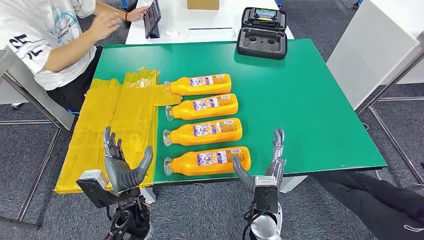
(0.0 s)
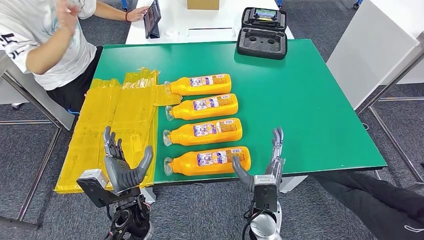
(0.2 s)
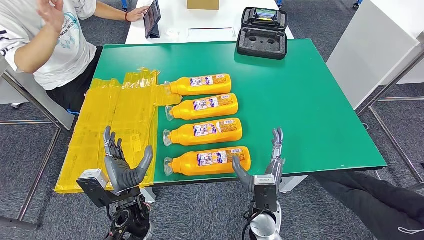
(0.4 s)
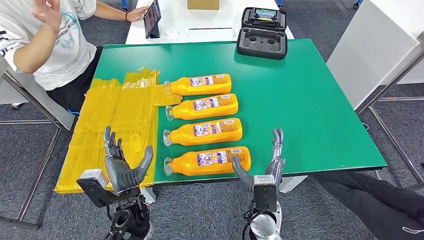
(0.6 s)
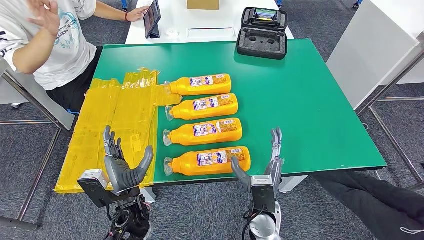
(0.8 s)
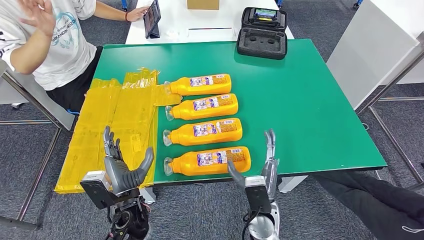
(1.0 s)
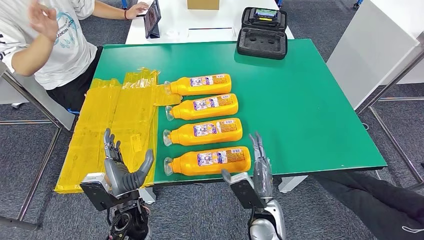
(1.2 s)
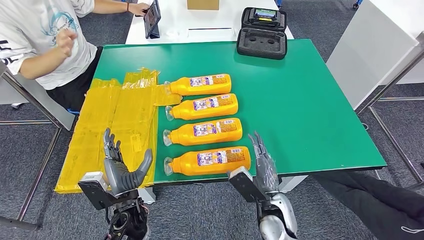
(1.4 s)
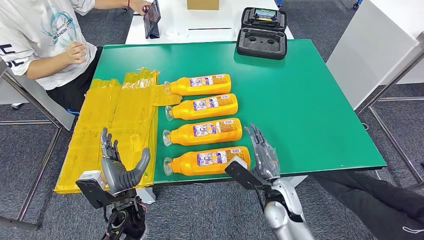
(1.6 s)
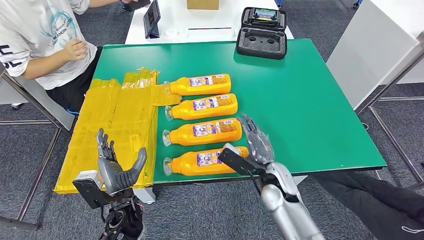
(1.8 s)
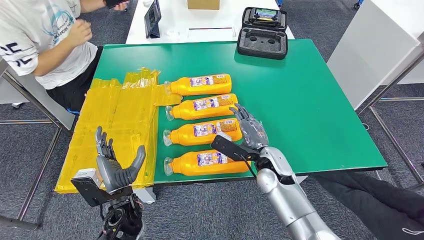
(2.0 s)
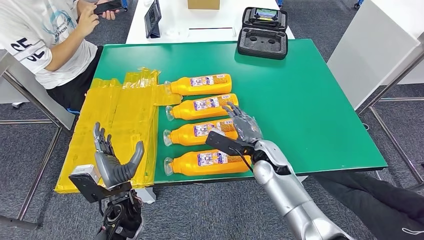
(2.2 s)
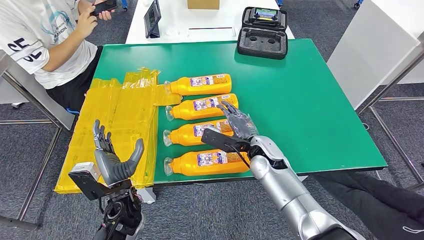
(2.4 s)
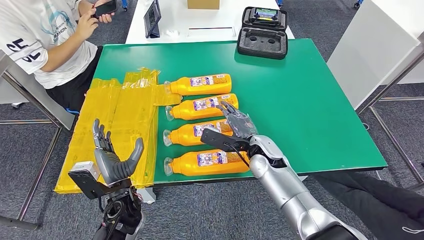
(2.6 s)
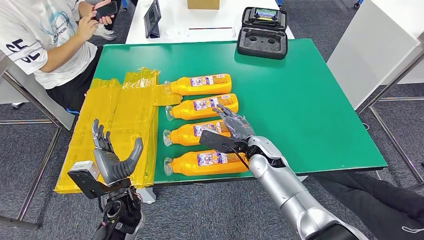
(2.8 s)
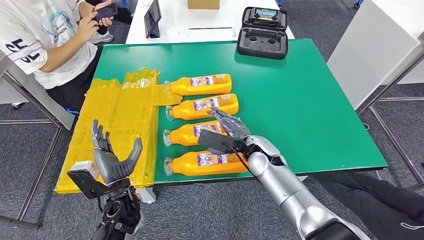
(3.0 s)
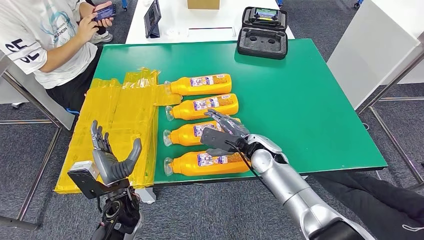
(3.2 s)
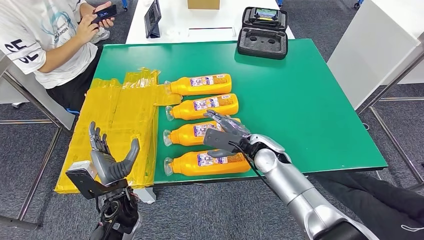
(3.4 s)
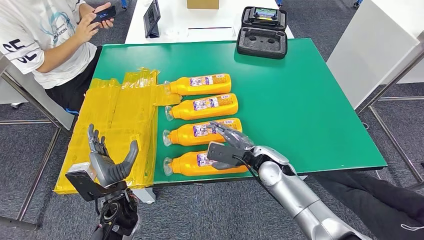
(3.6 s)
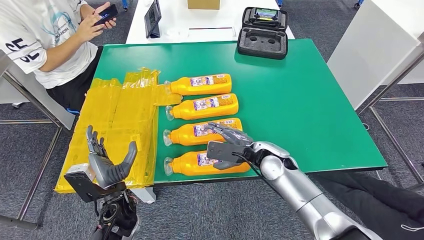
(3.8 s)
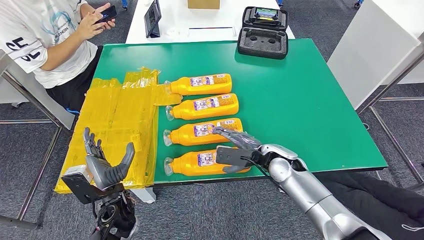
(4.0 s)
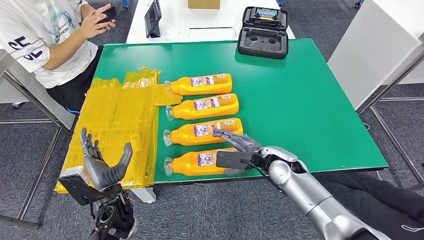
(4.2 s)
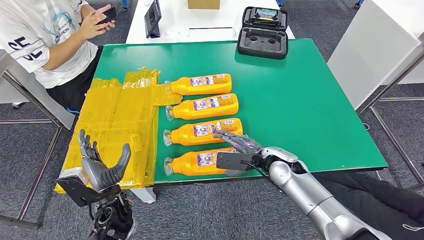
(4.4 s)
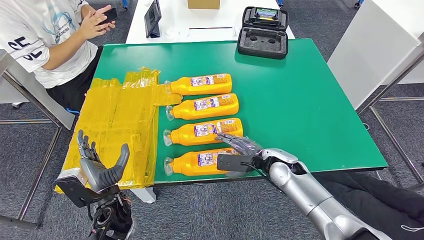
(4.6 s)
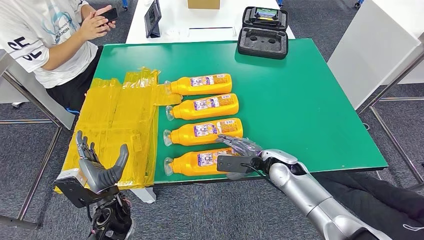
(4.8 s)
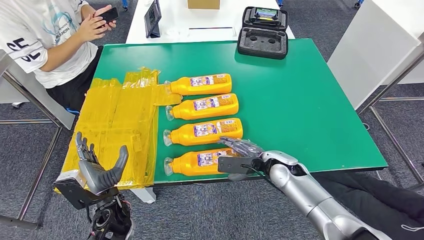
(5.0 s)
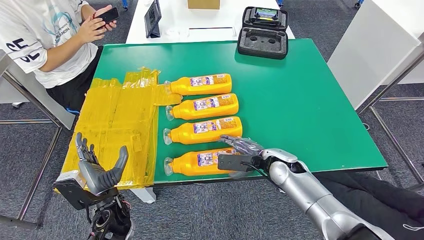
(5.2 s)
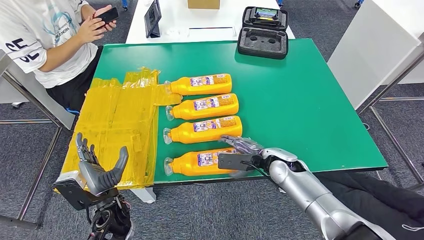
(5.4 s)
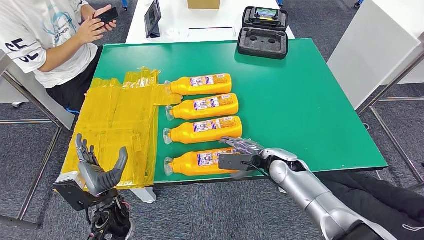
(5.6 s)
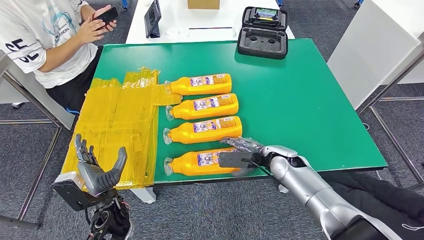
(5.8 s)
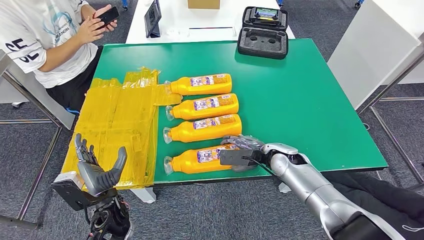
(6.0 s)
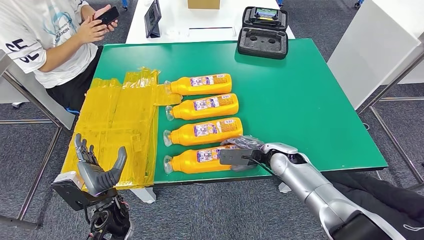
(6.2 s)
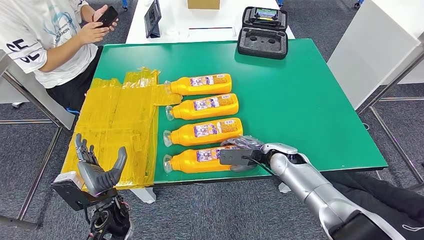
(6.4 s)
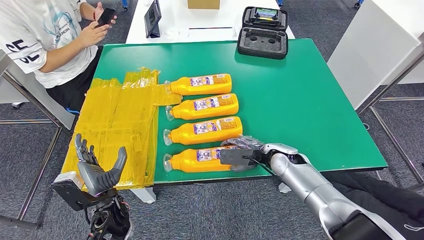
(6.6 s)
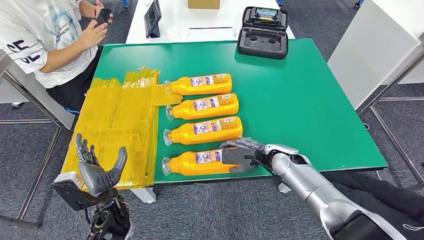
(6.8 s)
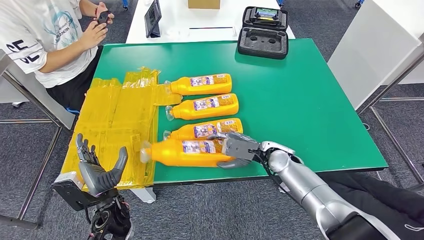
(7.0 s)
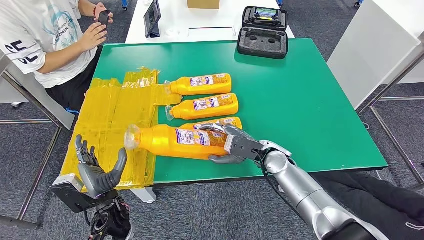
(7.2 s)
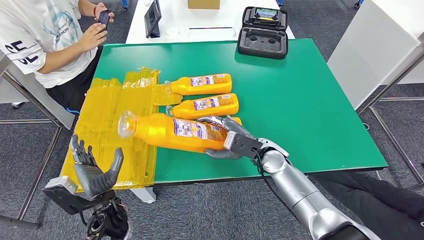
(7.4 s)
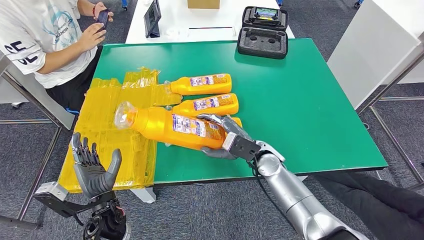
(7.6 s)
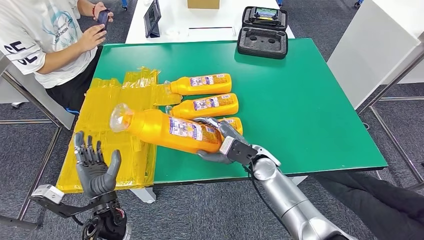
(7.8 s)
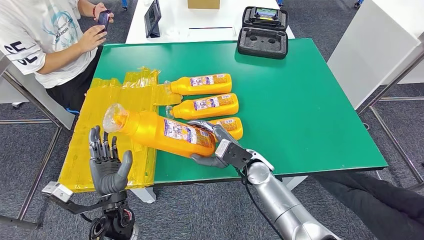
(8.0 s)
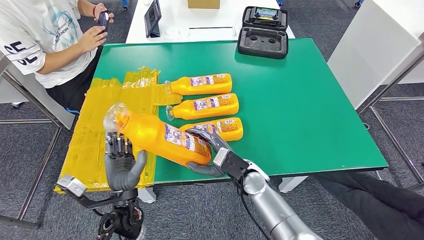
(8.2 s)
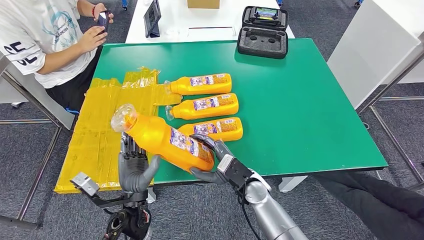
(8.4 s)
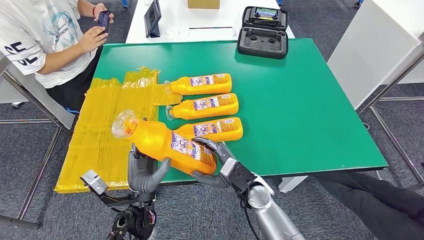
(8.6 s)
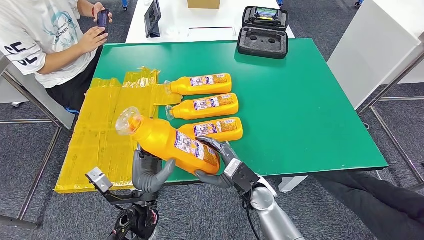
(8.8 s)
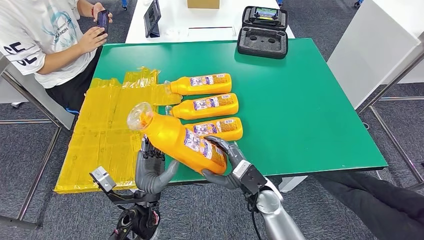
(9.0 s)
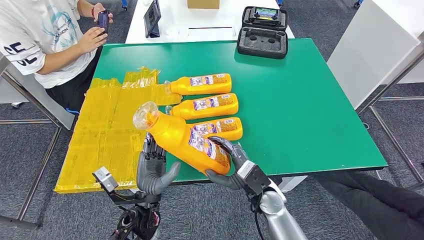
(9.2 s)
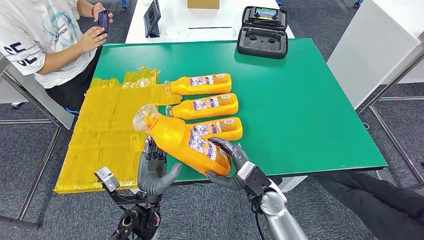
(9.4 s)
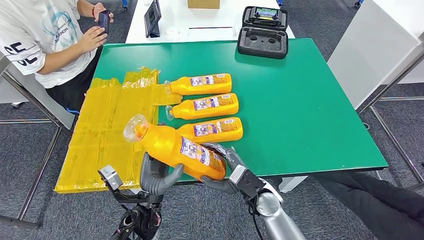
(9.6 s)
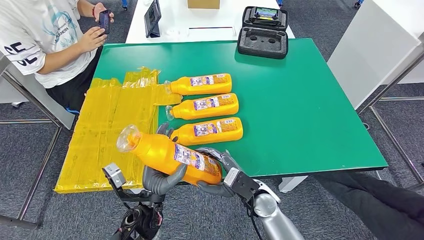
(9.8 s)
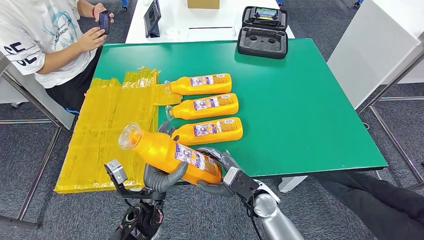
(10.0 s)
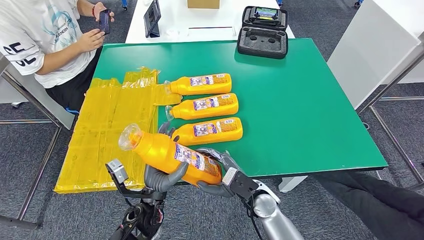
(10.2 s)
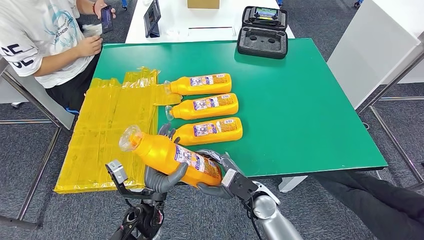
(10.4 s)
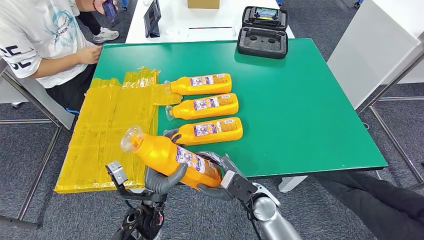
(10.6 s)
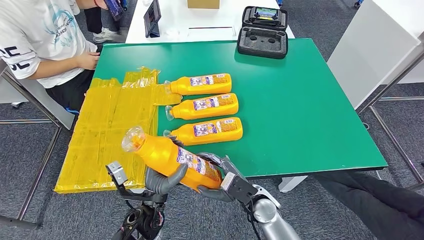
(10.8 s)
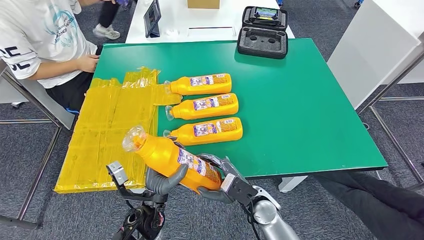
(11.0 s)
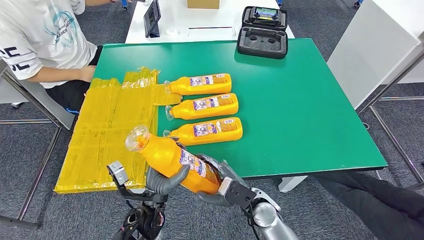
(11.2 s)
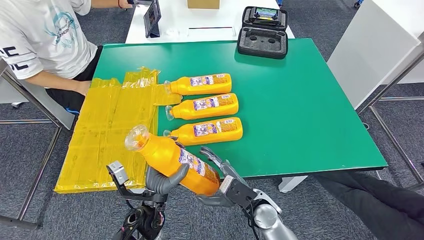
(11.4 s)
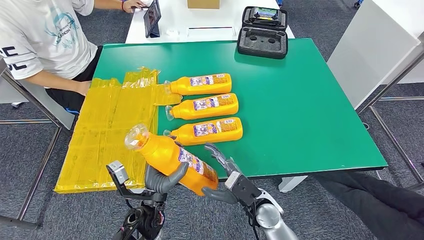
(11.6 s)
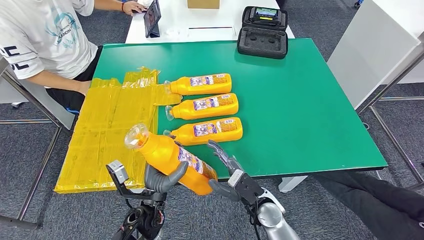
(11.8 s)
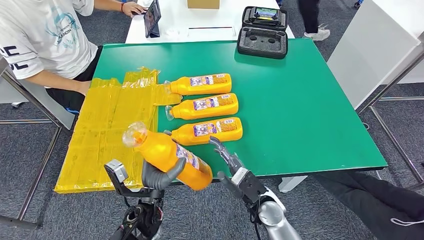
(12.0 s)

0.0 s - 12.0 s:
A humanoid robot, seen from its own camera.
Step, 0.0 s - 8.2 s: Take the fast-moving consumer goods bottle from the table.
1.6 s - 3.0 s: The right hand is displaced forward by roughly 10 cm.
3.0 s - 4.4 s: The right hand moves to the right, about 5 cm.
4.4 s - 6.0 s: The hands make only small movements.
6.0 s - 7.6 s: The right hand heads to the left, covering about 5 cm.
7.6 s - 9.0 s: The left hand heads to the right, covering some 10 cm. Meanwhile the right hand heads backward, covering roughly 10 cm.
9.0 s - 12.0 s: The hands make only small movements.

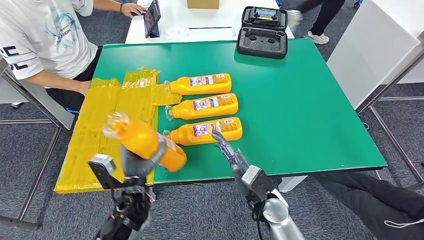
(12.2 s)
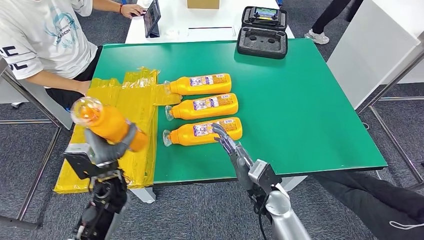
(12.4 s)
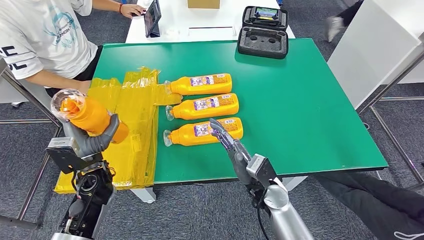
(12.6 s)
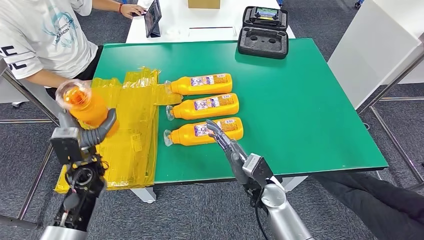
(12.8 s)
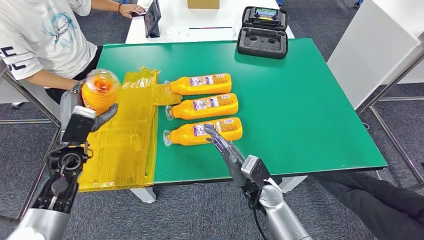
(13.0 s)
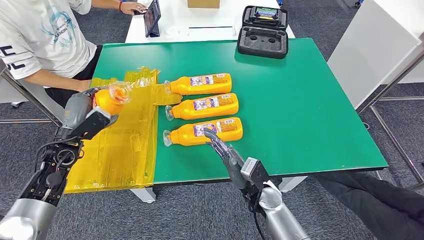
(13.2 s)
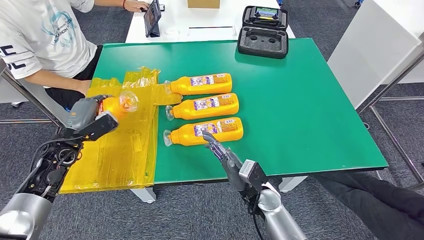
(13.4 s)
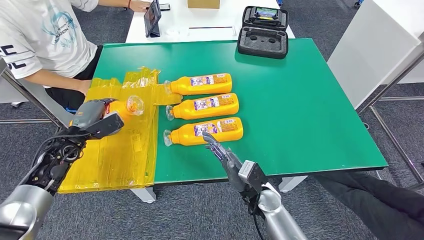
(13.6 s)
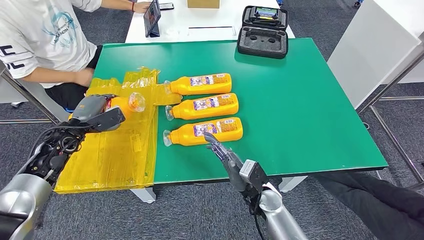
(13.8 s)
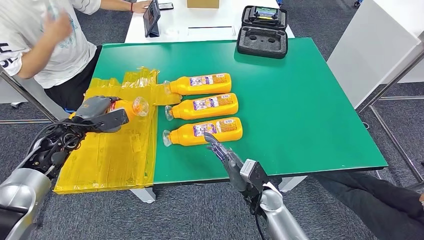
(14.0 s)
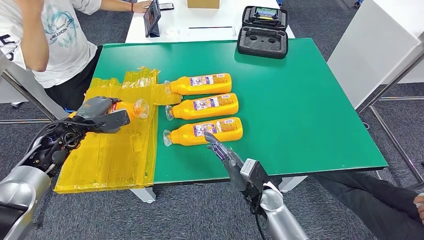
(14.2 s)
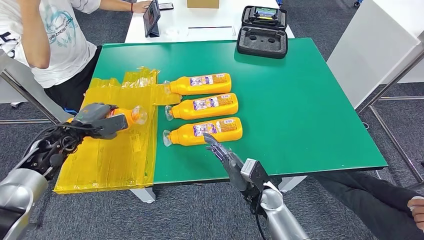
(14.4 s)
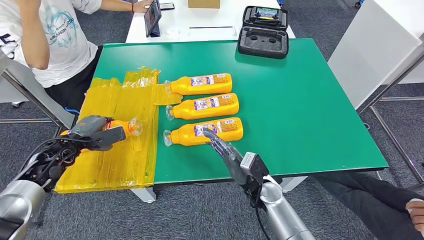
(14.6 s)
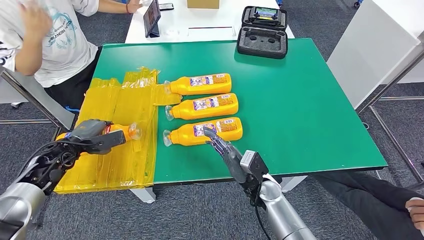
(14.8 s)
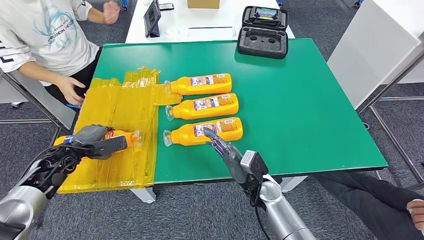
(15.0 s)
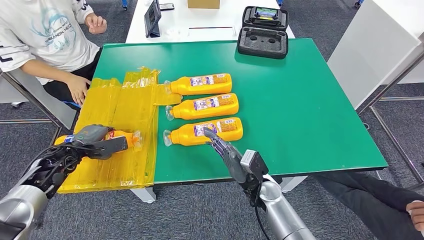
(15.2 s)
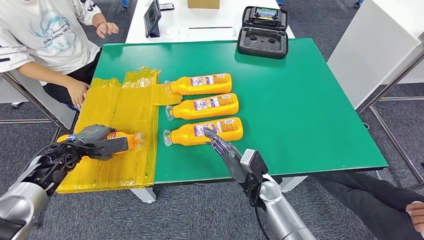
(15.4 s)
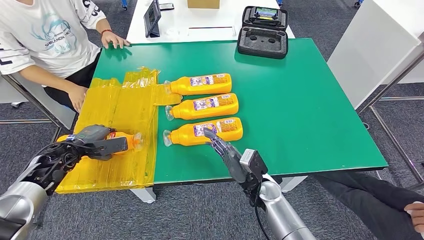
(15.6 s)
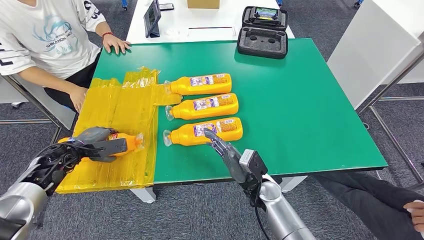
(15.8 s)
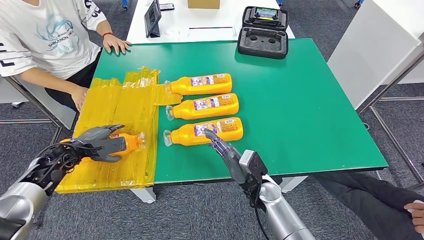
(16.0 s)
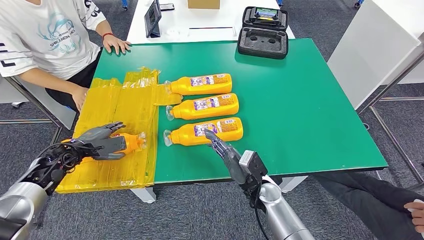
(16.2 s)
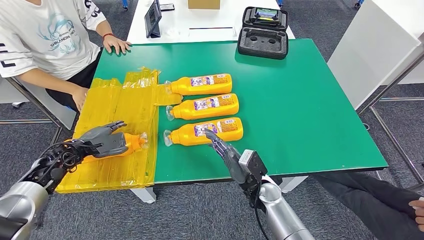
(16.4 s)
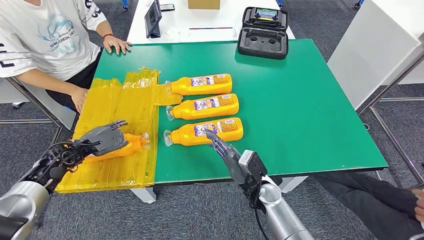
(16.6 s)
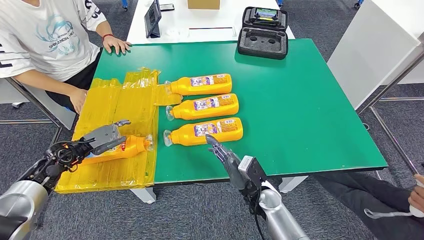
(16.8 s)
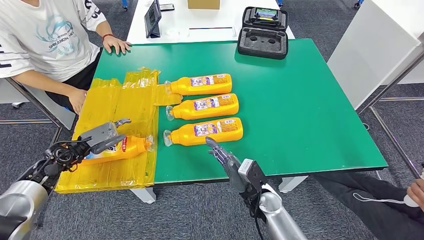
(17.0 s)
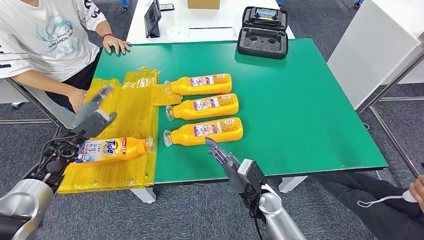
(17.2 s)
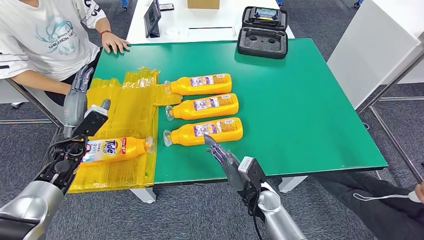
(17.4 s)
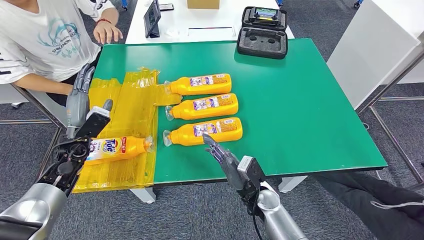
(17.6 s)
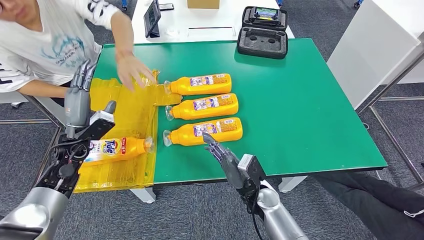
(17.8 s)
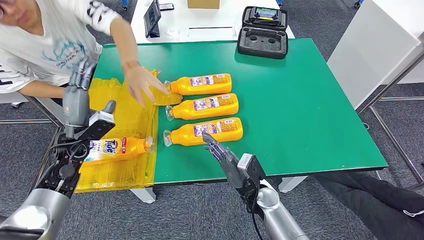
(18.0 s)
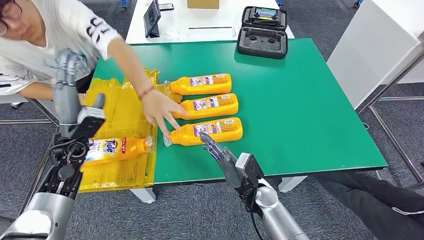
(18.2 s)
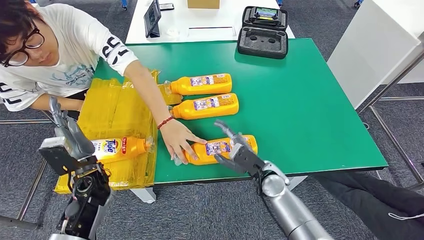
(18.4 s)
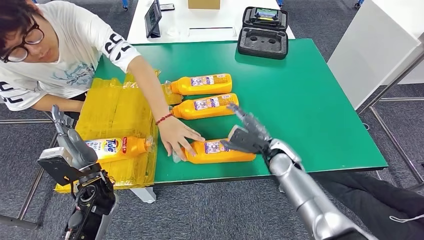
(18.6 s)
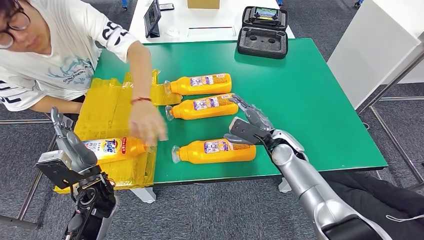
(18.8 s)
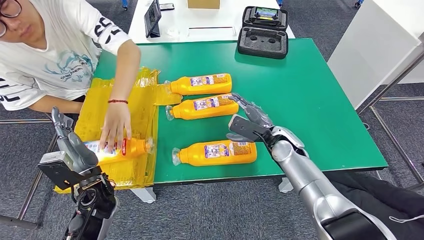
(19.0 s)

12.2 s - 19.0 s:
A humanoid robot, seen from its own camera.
12.2 s - 13.6 s: The left hand heads to the left and forward, covering approximately 25 cm.
13.6 s - 15.0 s: The left hand moves some 5 cm.
15.0 s - 16.2 s: The hands make only small movements.
16.2 s - 17.6 s: The left hand goes about 5 cm to the right.
